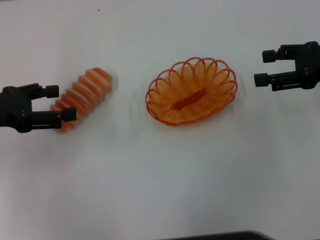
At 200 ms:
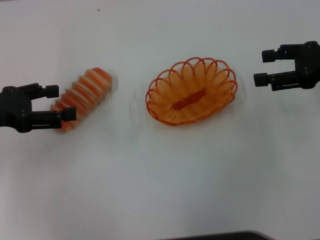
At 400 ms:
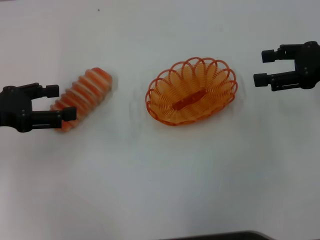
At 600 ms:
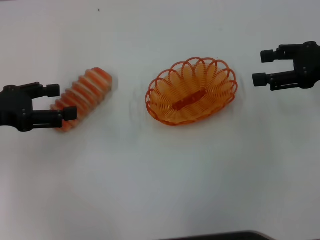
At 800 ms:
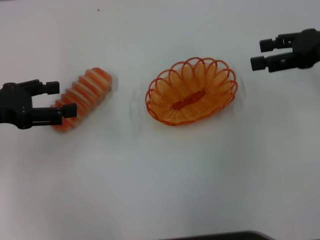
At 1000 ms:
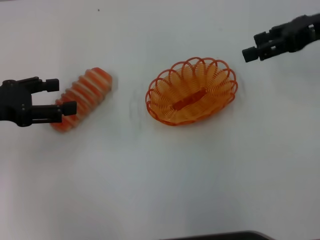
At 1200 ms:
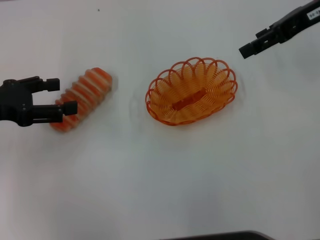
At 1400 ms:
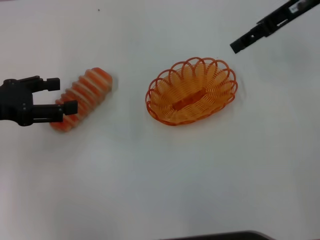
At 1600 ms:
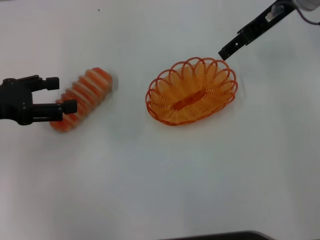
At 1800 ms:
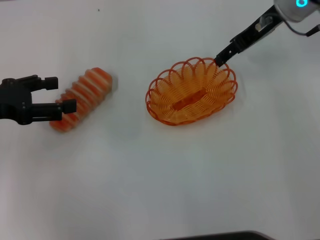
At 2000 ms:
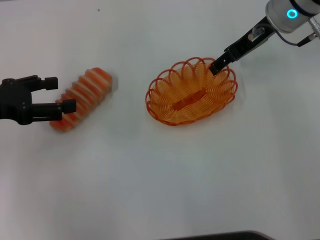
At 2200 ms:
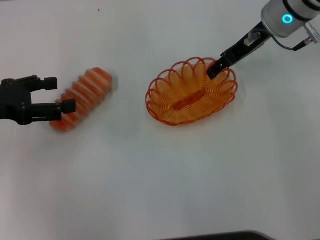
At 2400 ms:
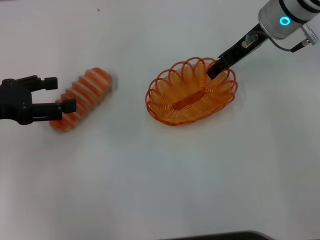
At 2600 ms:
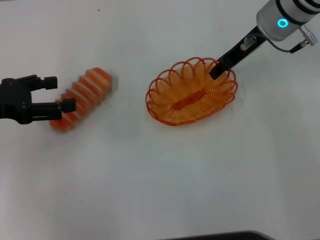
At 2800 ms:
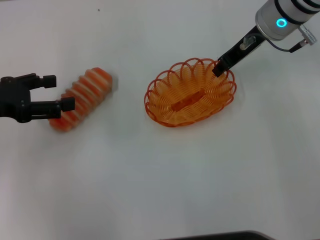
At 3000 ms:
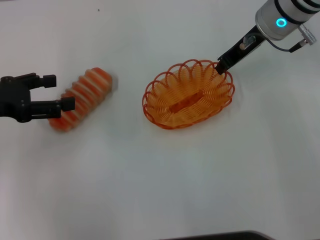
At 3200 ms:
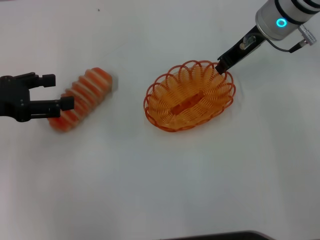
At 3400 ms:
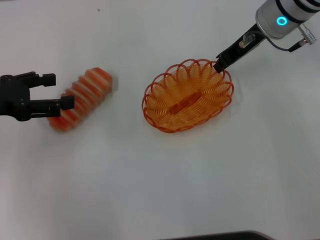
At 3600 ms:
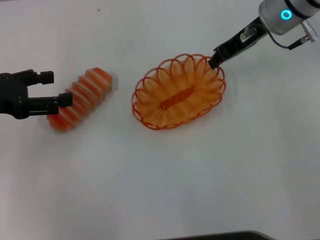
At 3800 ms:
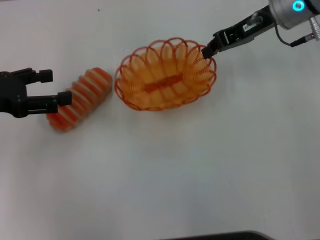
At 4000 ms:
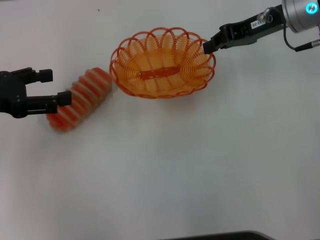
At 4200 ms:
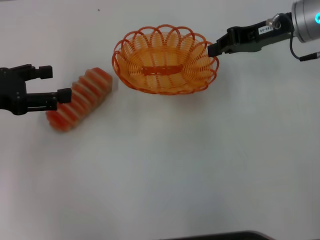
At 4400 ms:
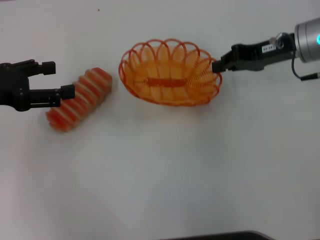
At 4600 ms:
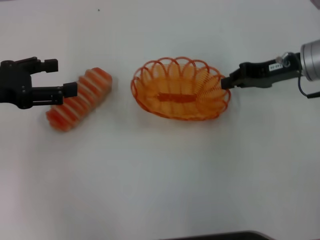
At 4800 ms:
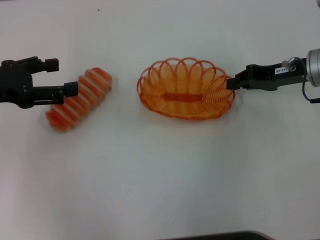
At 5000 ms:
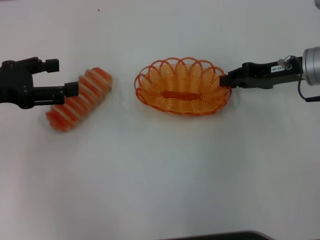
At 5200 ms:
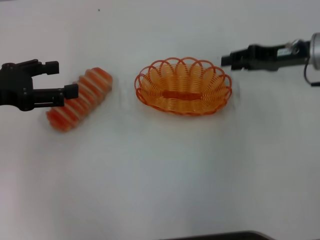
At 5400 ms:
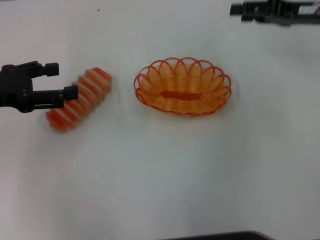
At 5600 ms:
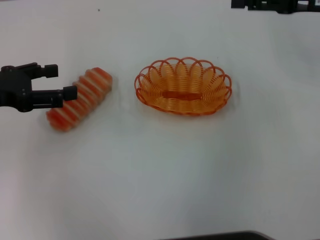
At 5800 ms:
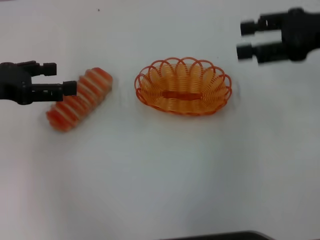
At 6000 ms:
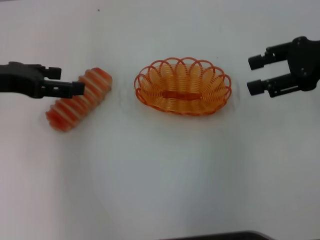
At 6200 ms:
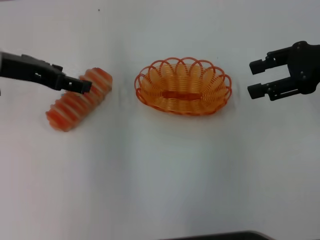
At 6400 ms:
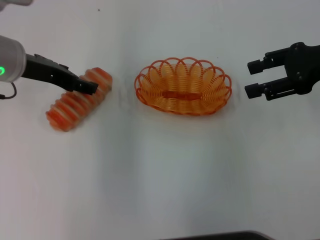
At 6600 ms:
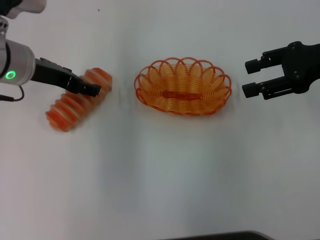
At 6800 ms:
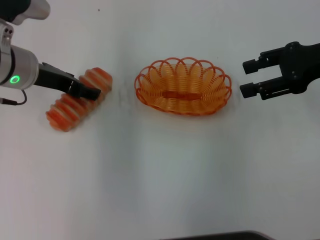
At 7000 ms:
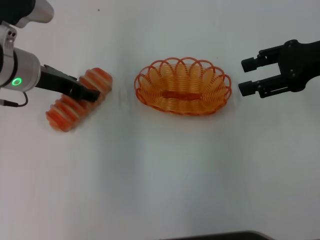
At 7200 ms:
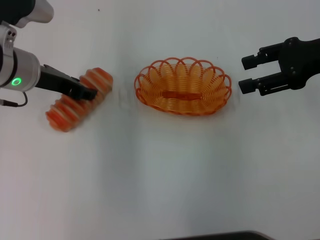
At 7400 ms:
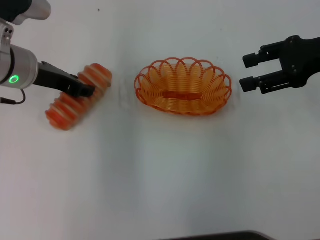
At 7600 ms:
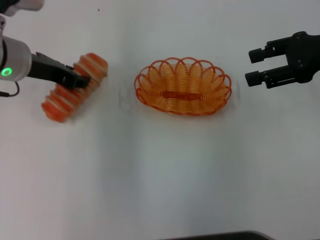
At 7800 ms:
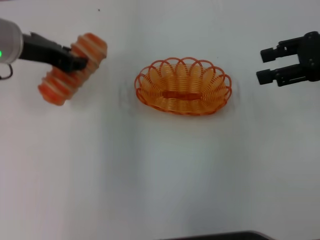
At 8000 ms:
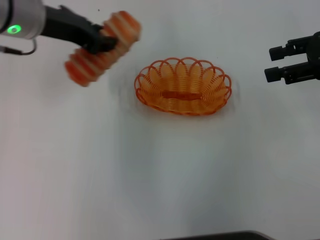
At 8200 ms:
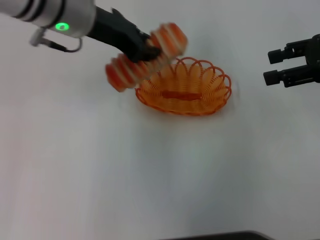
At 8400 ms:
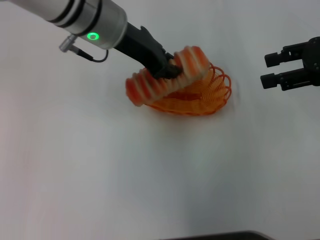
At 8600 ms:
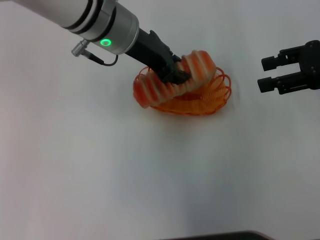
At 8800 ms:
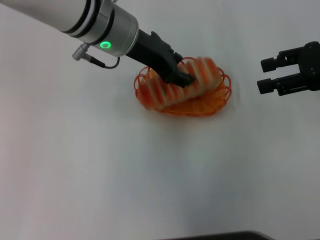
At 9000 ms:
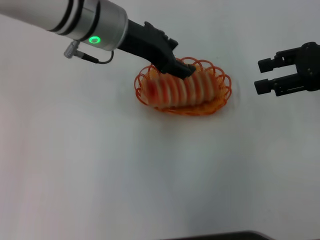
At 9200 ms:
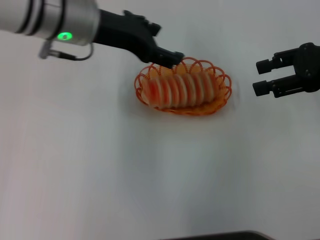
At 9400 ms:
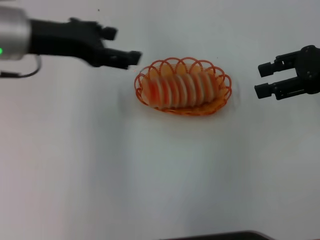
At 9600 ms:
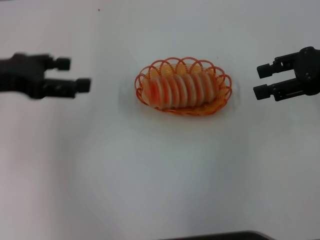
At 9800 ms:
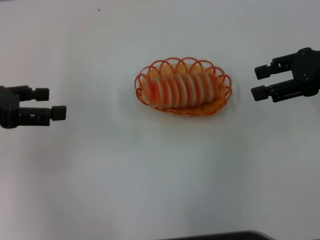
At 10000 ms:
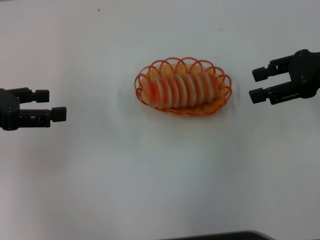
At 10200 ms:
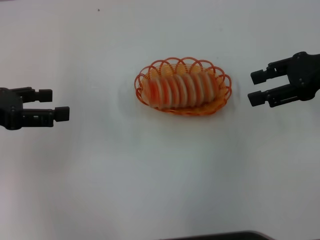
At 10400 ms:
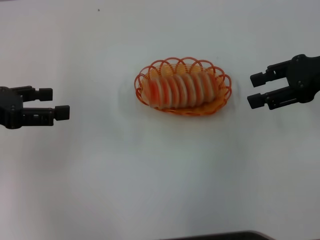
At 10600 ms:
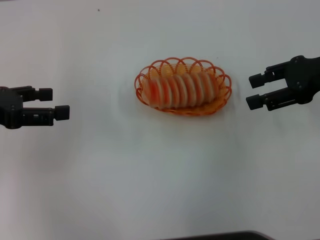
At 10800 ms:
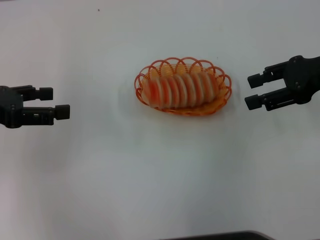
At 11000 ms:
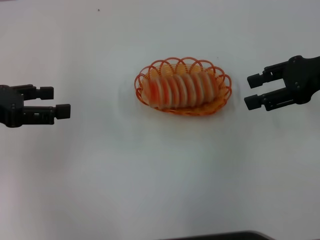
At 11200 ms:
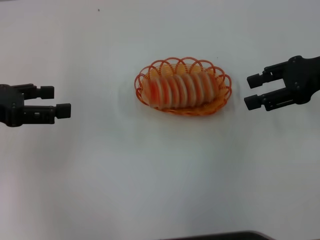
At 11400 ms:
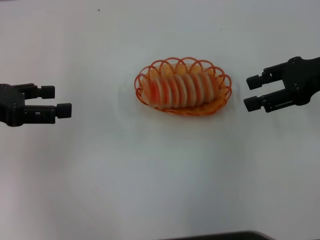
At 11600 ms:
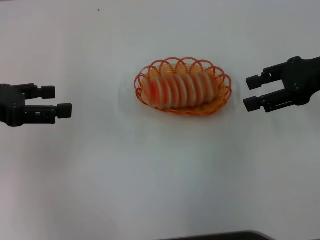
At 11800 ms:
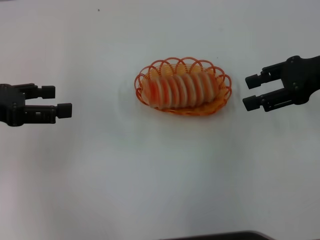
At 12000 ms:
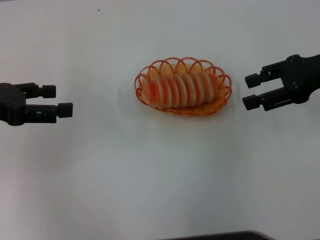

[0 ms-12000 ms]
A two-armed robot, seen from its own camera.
Step, 0 ms to 3800 ms: Pick up the basket with the right gripper.
Step, 4000 ms to 5200 ms: Place the basket in the center of view with the right gripper.
Step, 5400 ms to 7800 ms: Pick up the long bread with the left gripper.
Step, 8000 ms to 9000 ms: Place the long bread into the basket with the left gripper.
0 ms to 1600 ms: The right gripper shifts approximately 15 cm to the left, forward and upward.
1600 ms to 3000 ms: The right gripper is displaced downward by some 5 cm, and closes up.
3000 ms to 4400 ms: The right gripper heads to the right, covering about 5 cm, and closes up.
4400 ms to 6000 ms: The right gripper goes roughly 10 cm backward, upward and to the right, and opens; the left gripper moves roughly 5 cm.
6000 ms to 7600 ms: The left gripper shifts some 5 cm to the right, and closes.
7600 ms to 9000 ms: The left gripper is displaced to the right by about 10 cm.
9000 ms to 10400 ms: The left gripper shifts some 25 cm to the left and backward, and opens.
10400 ms to 12000 ms: Both grippers stay put.
